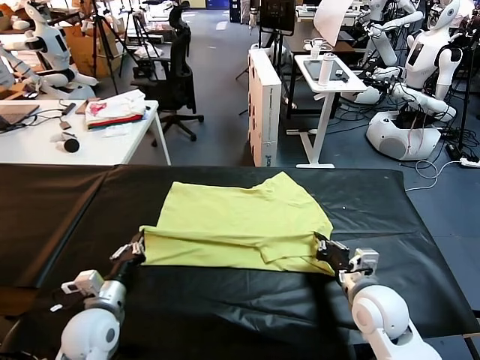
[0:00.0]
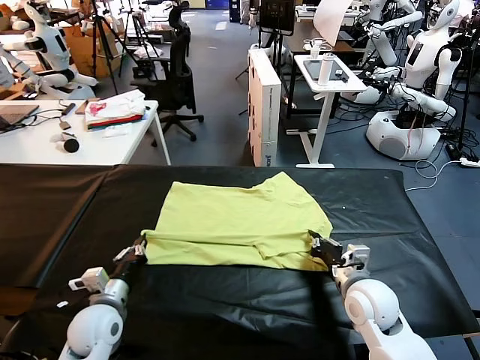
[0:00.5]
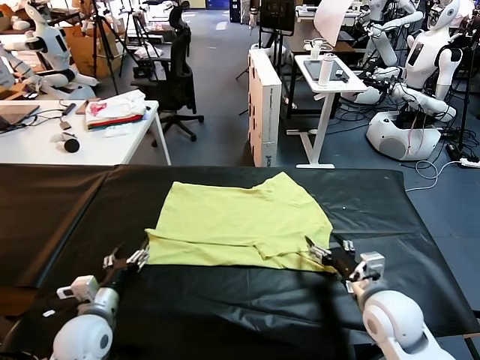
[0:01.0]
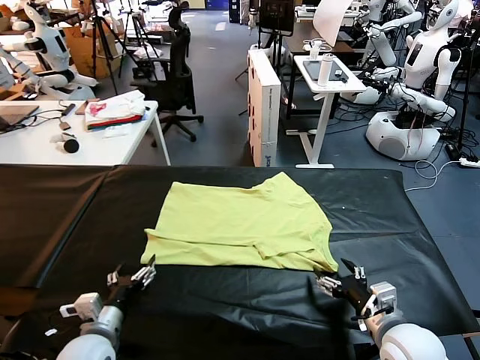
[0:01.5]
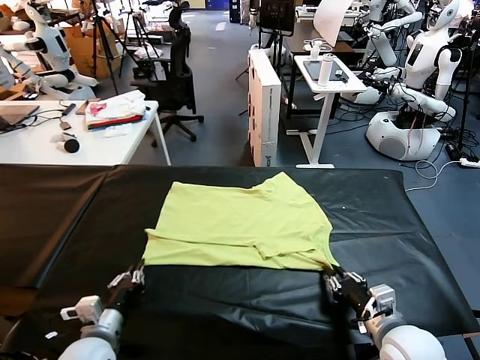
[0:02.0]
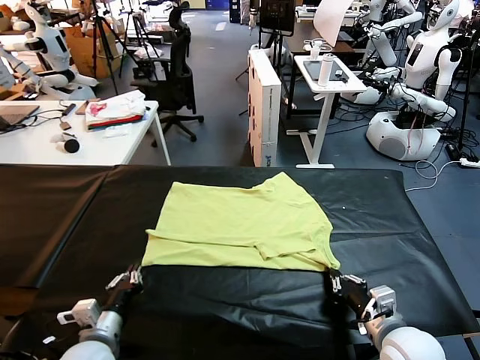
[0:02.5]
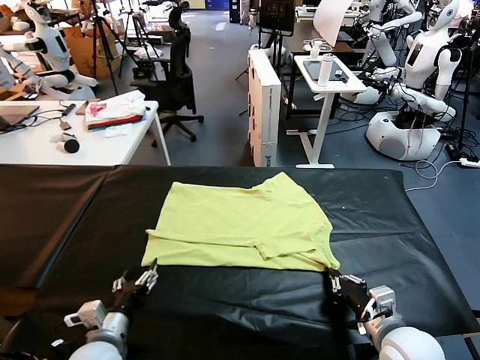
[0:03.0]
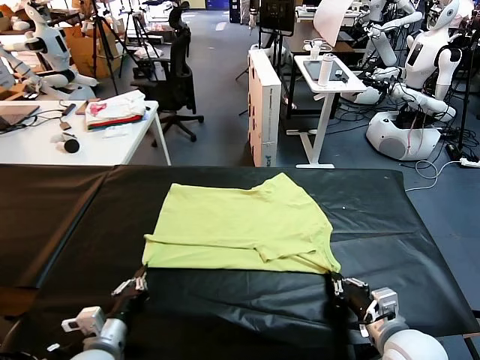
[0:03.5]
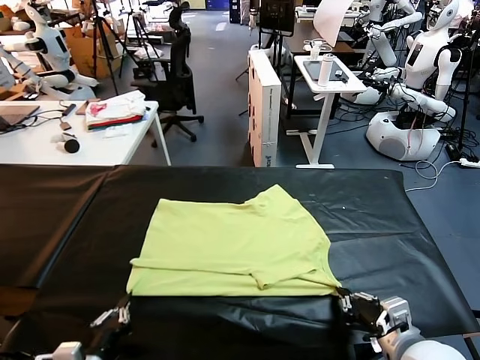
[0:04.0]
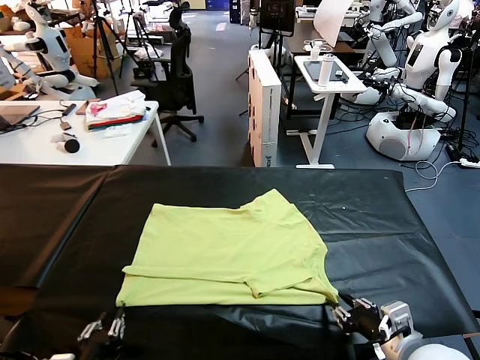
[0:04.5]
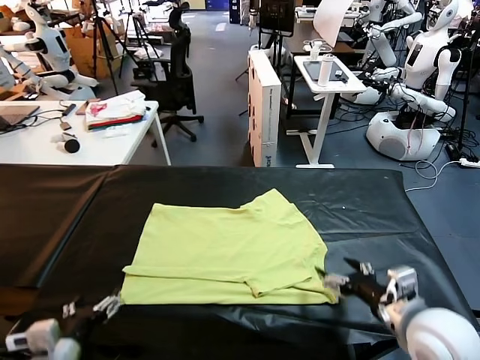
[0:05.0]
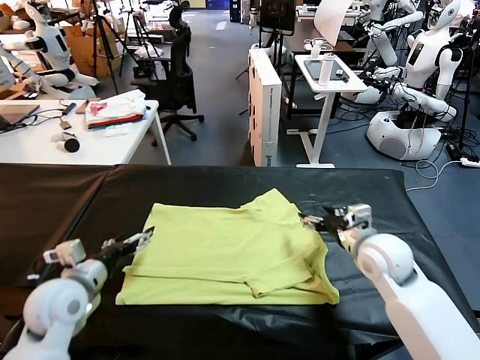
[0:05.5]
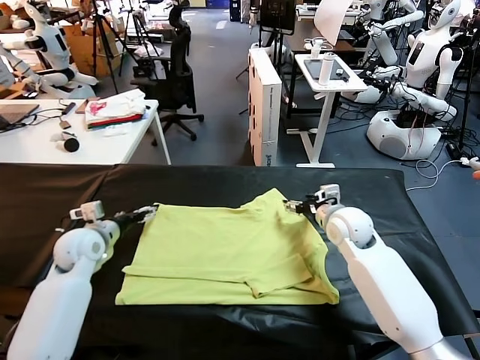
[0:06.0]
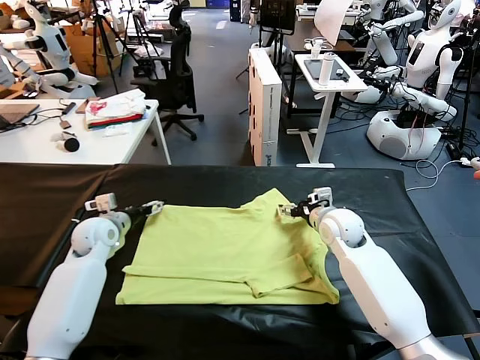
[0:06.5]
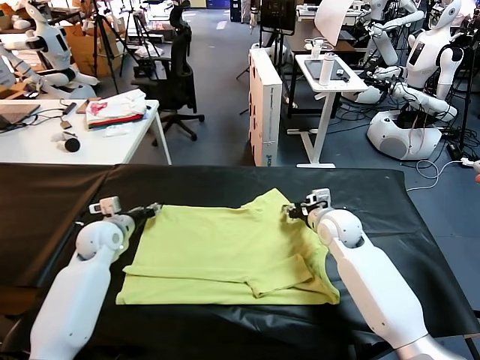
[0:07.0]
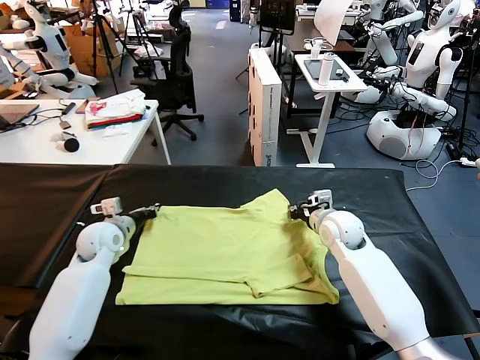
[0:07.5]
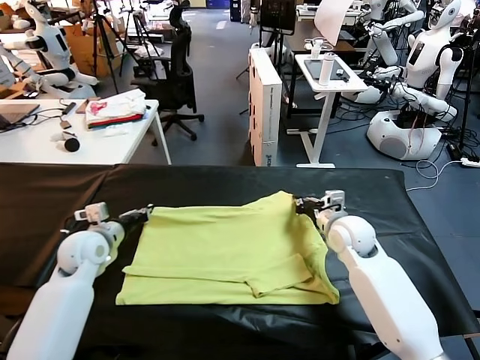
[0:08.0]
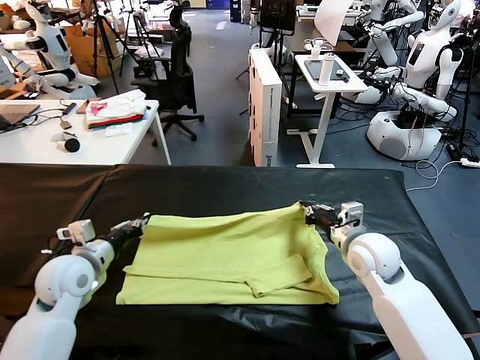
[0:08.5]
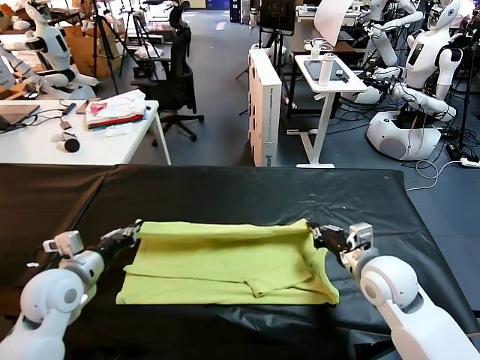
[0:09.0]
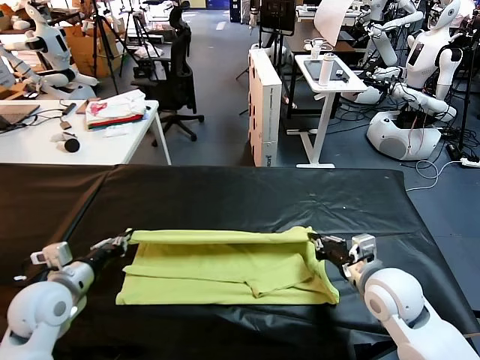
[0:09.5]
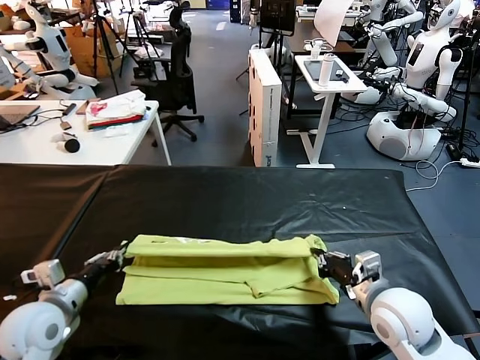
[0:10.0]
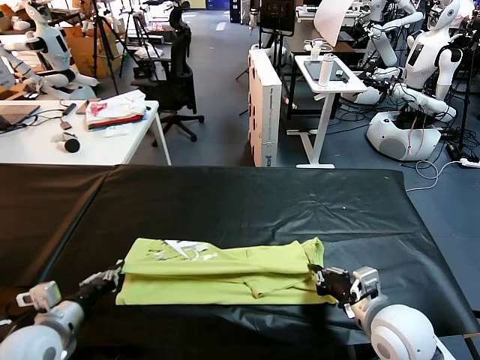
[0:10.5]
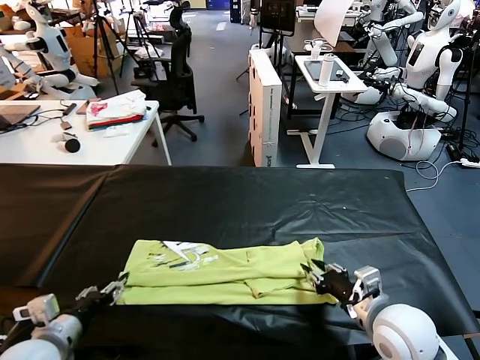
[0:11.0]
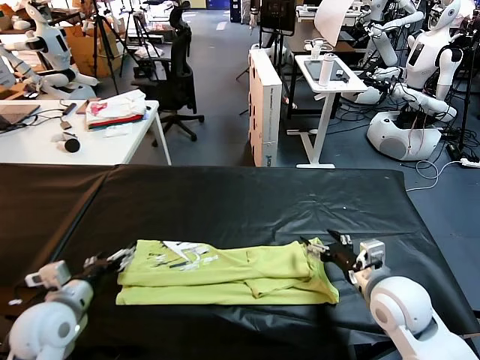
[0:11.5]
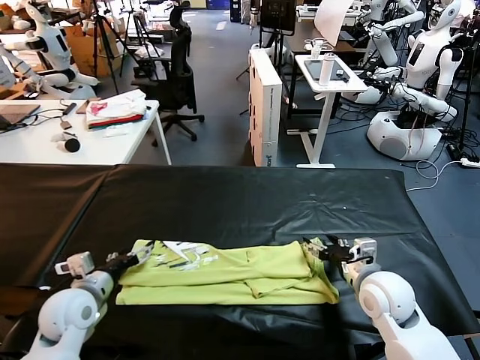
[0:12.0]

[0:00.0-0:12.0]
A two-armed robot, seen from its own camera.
Task of the whole recording: fold and organize the clothes.
Step, 0:01.0 to 0:04.5: Drag the clothes downward with both gripper.
Step, 0:05.0 to 0:07.5: use both grippers simultaneously to clamp the upper edge of the clothing fabric.
Step, 0:08.0 to 0:11.0: use both grippers to drag the upper edge of the fabric backward and fold it over the lower edge.
0:00.0 to 0:02.0: The left gripper moves backward, approximately 5 cm, and opens, then closes again. The right gripper moves backward, roughly 10 cm, and opens and closes again.
0:02.0 to 0:04.0: The right gripper moves about 5 cm. Meanwhile the left gripper heads backward, covering some 10 cm, and opens, then closes once more.
0:04.0 to 0:06.0: Both grippers travel together forward, approximately 30 cm. The left gripper opens. The right gripper opens its fingers.
0:06.0 to 0:08.0: The left gripper closes its fingers. Meanwhile the right gripper closes.
0:08.0 to 0:10.0: Both grippers travel together backward, roughly 15 cm.
0:10.0 to 0:12.0: The grippers both shift forward by about 5 cm. The right gripper opens. Meanwhile the left gripper opens its fingers.

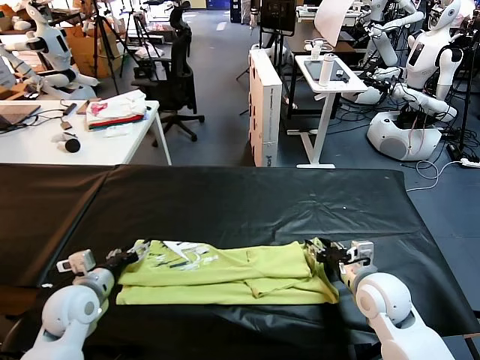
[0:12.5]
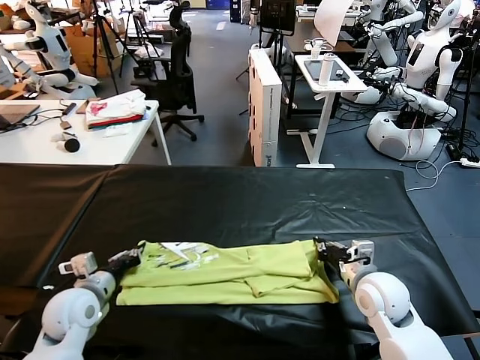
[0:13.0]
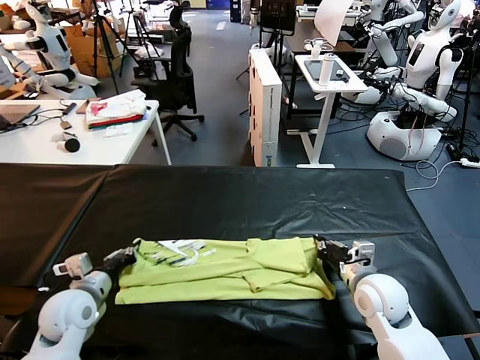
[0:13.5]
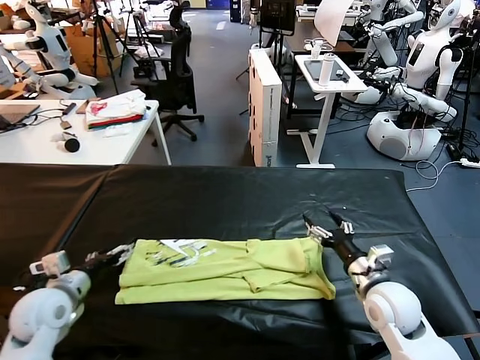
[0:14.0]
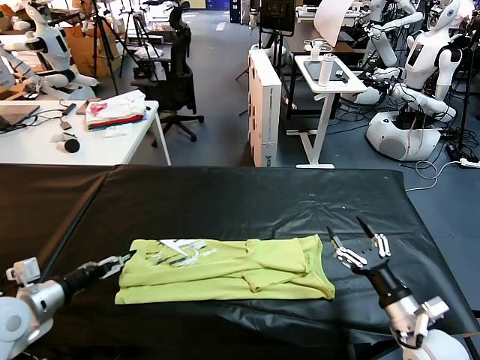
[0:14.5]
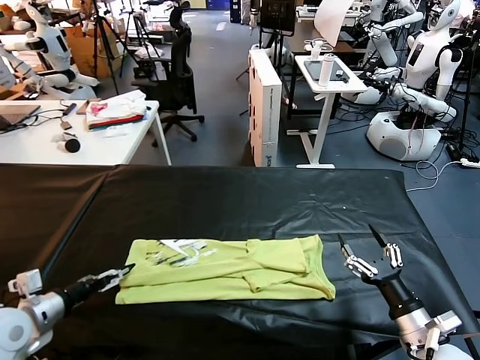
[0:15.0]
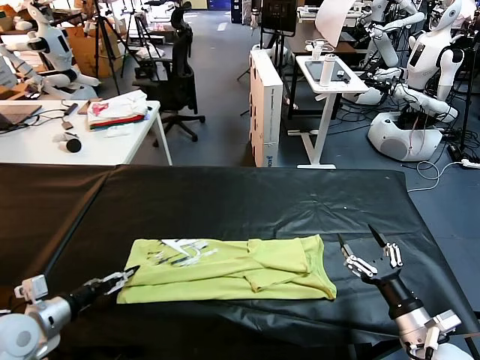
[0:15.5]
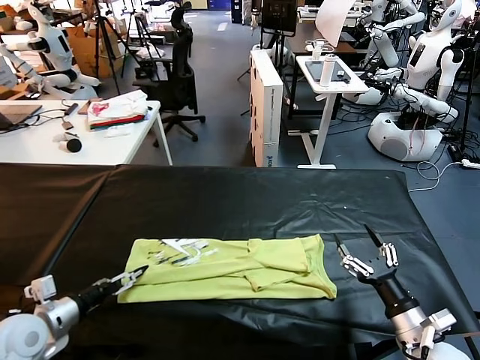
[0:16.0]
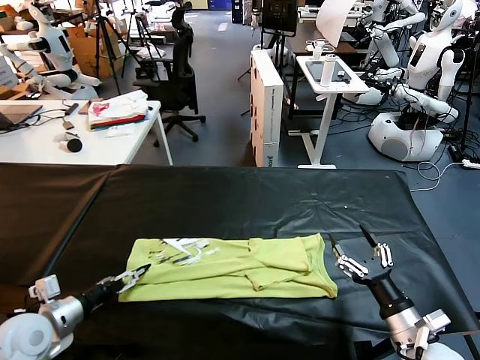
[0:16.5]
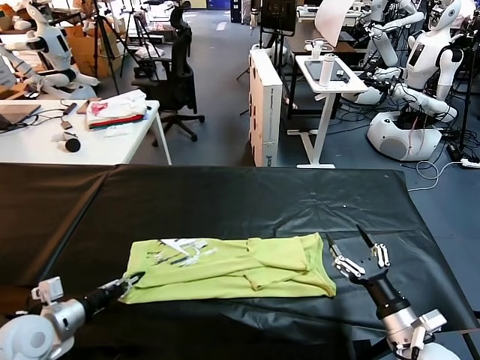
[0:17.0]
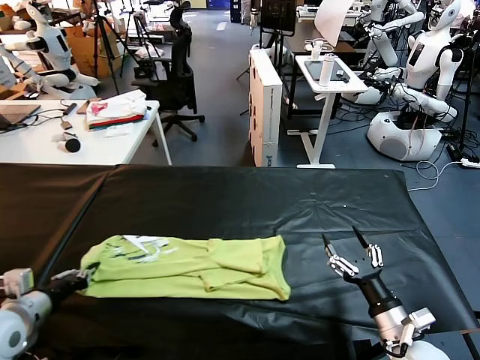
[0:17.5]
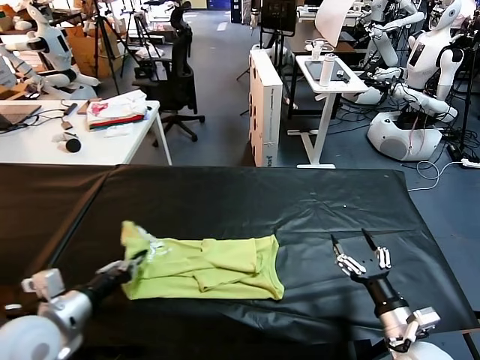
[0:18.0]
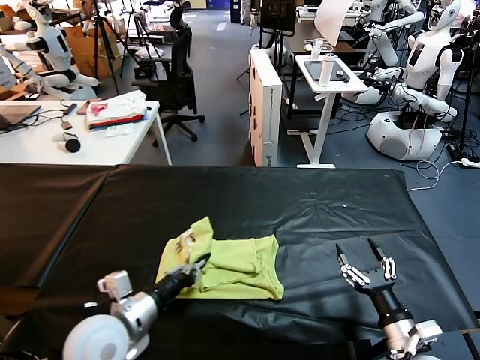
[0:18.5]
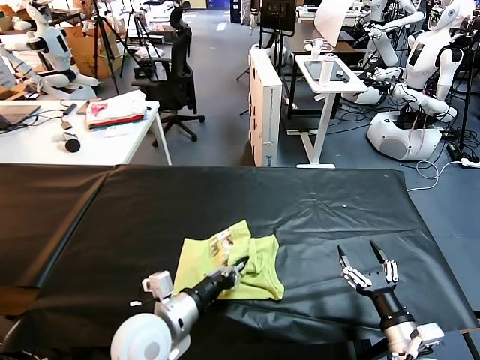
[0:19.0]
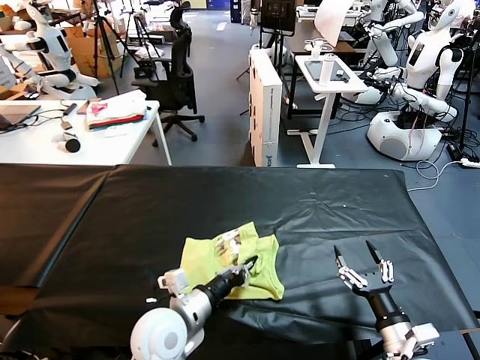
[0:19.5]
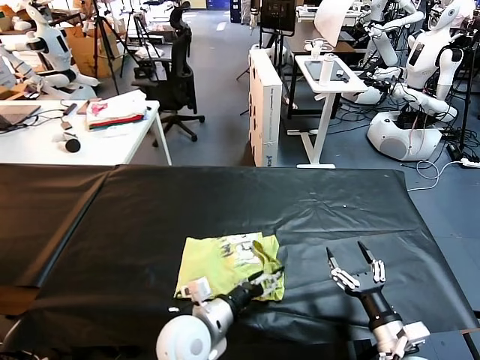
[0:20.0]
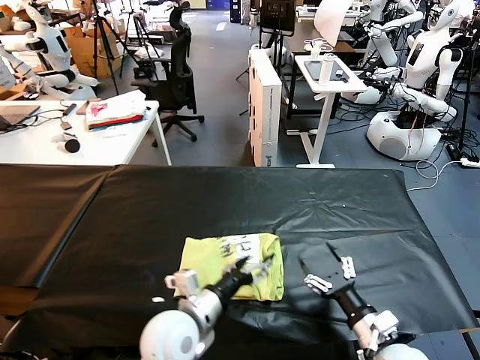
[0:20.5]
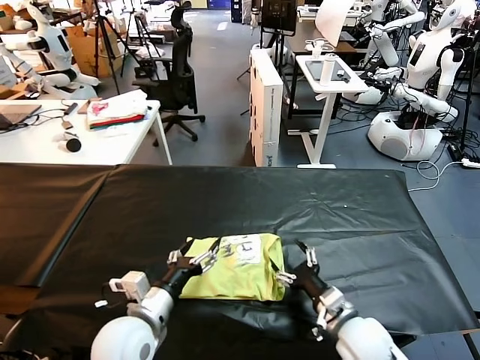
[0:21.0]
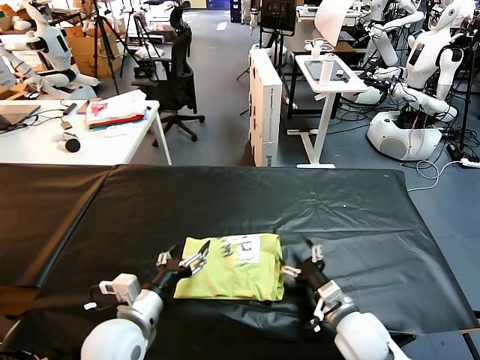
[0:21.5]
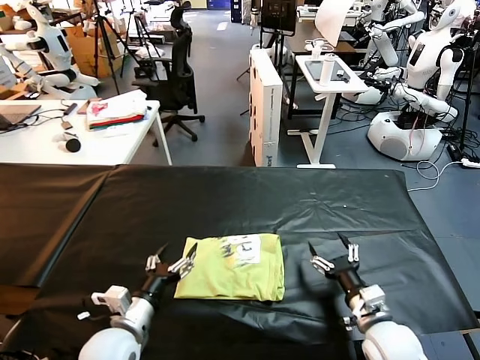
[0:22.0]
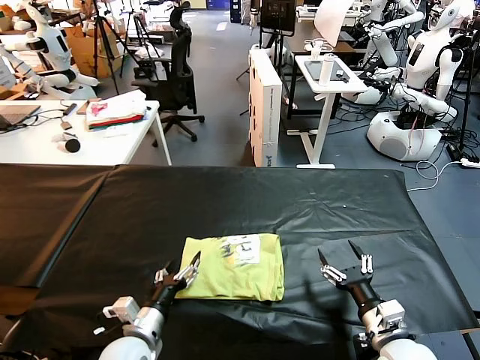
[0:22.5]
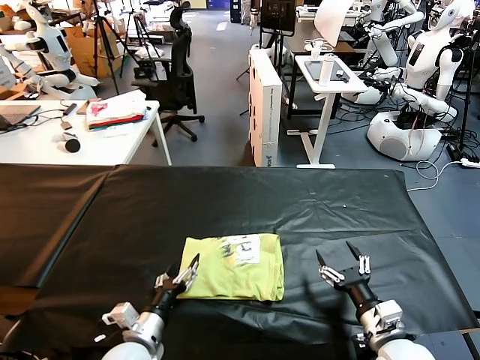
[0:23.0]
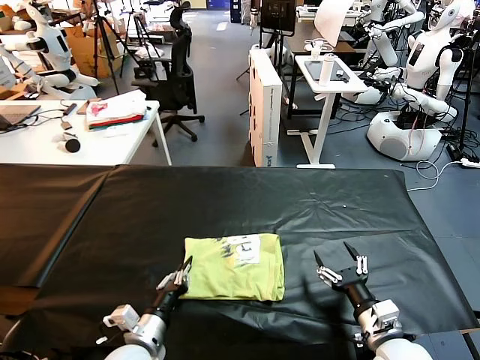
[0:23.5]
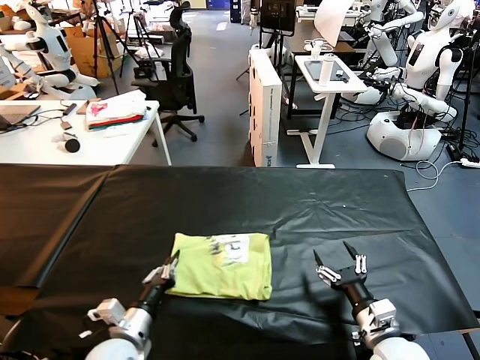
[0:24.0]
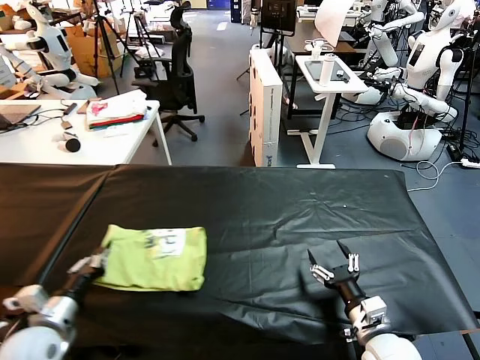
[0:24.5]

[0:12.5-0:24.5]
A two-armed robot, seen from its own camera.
Task of the whole recording: fold and organize the clothes.
Step, 0:12.5 to 0:16.5: use the left gripper to clamp the left edge of the fabric.
Step, 0:17.0 to 0:20.0: use the left gripper to drag the left edge of the fabric to the left and folds it over the right edge.
0:12.5 to 0:14.5: The left gripper shifts roughly 10 cm to the left, upward and backward, and closes, then opens again; the right gripper shifts roughly 15 cm backward and to the right, and opens up.
0:14.5 to 0:16.5: The left gripper moves roughly 5 cm.
0:16.5 to 0:18.5: The left gripper heads to the right, covering about 15 cm, and closes.
0:18.5 to 0:20.5: The left gripper travels to the right by about 10 cm, and opens its fingers.
0:20.5 to 0:22.5: The left gripper travels to the left and downward by about 15 cm.
0:22.5 to 0:24.5: The left gripper travels to the left by some 15 cm, and closes.

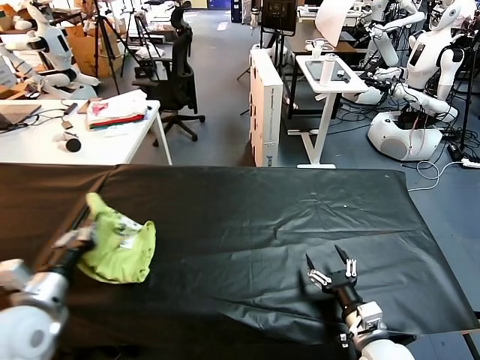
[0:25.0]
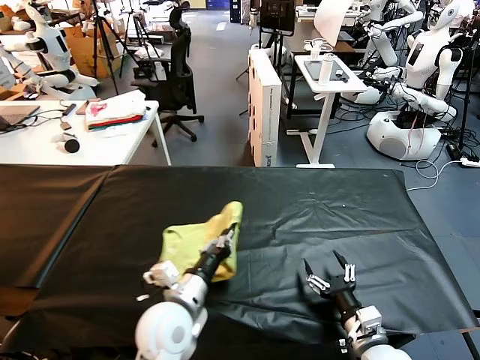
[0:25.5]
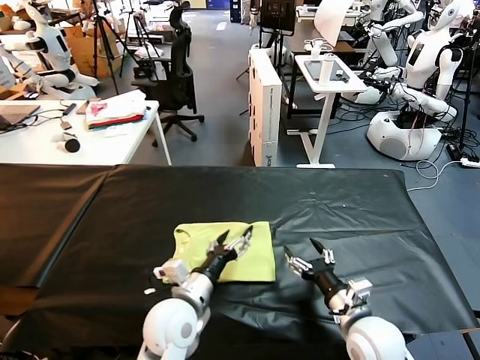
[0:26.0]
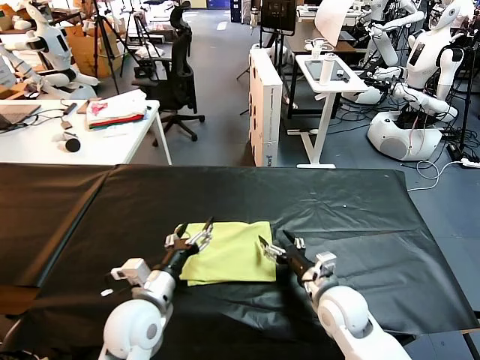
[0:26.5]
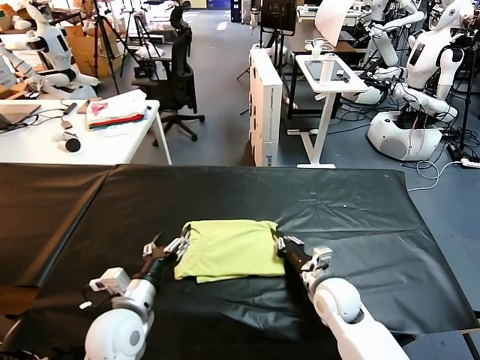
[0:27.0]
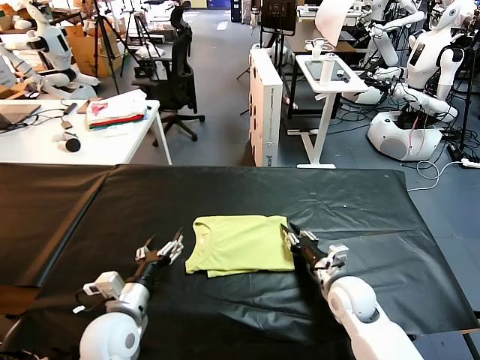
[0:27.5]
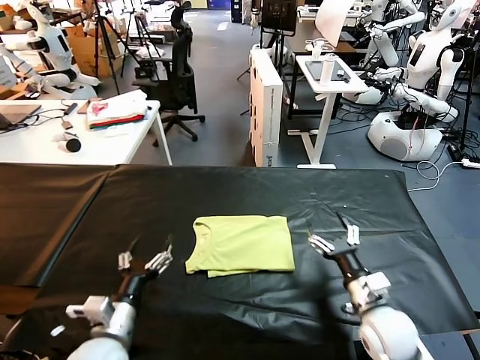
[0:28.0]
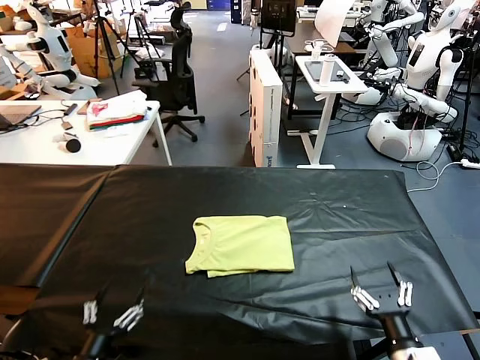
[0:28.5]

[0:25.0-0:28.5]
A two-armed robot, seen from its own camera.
Task of the whole recording: fold and organize the clothes.
Step, 0:26.0 to 0:27.5: Drag the clothes to the center of the table.
0:25.0 to 0:27.0: The right gripper goes about 15 cm forward and to the left, and closes up. Meanwhile the left gripper moves to the right and downward, roughly 15 cm, and opens up.
0:27.0 to 0:28.5: The right gripper goes approximately 25 cm backward and to the right, and opens its fingers; the left gripper moves backward and to the left, roughly 15 cm.
